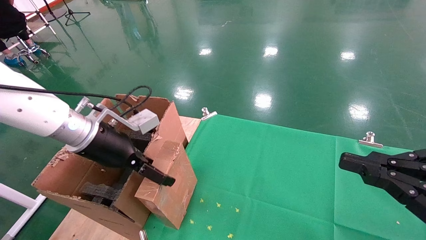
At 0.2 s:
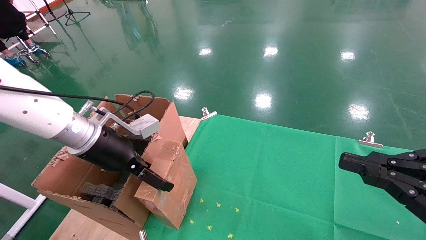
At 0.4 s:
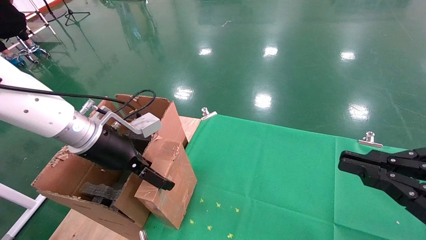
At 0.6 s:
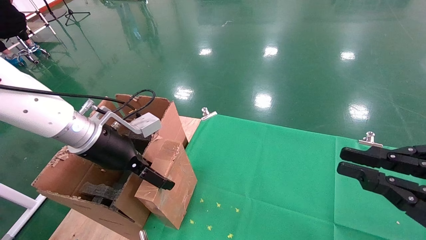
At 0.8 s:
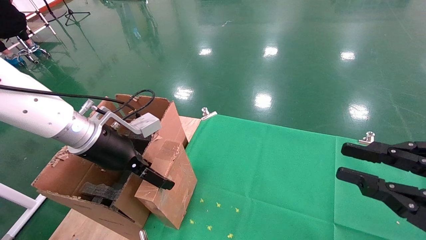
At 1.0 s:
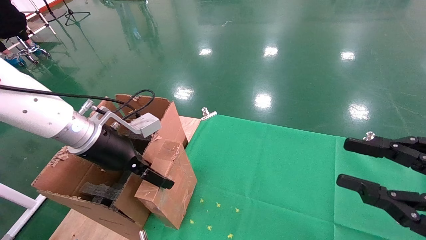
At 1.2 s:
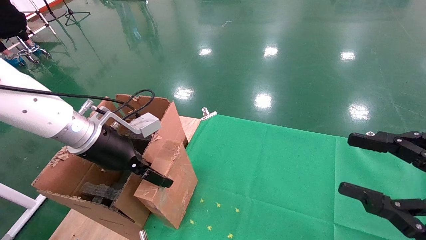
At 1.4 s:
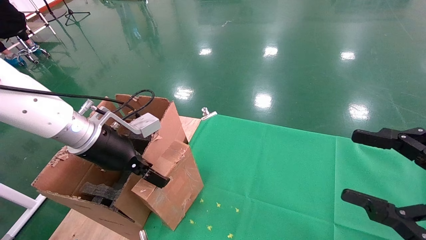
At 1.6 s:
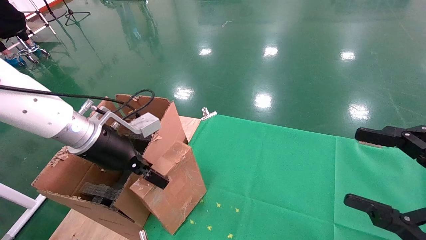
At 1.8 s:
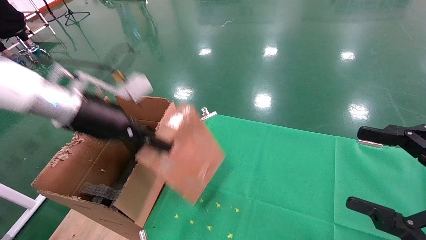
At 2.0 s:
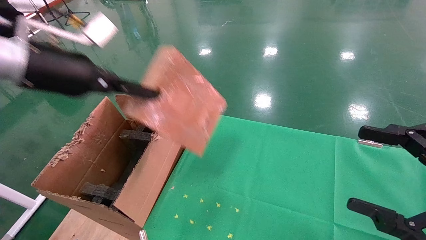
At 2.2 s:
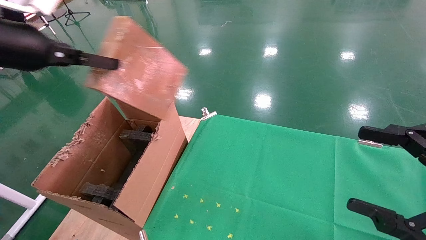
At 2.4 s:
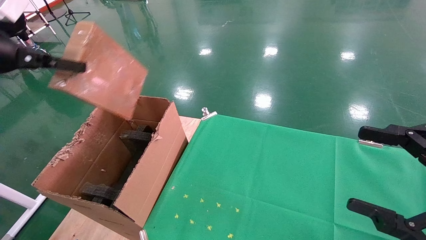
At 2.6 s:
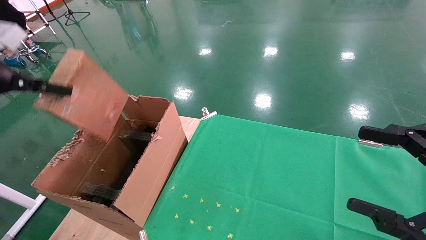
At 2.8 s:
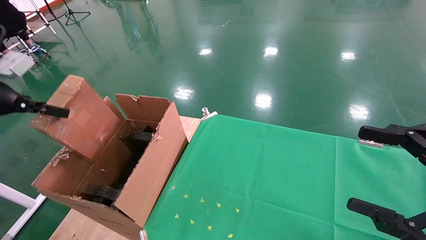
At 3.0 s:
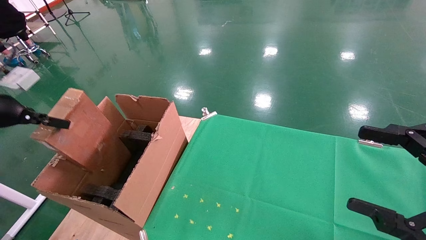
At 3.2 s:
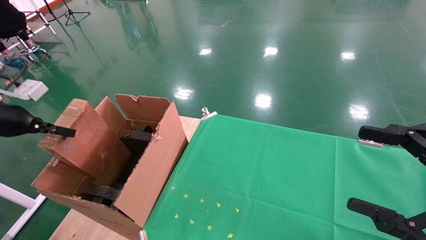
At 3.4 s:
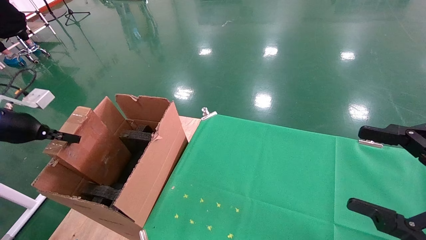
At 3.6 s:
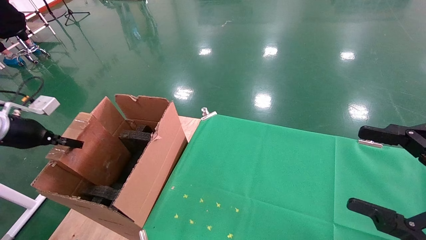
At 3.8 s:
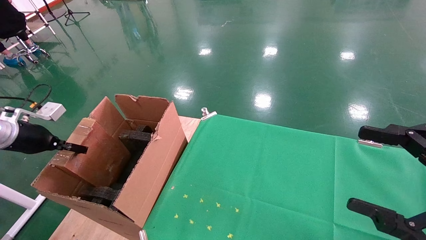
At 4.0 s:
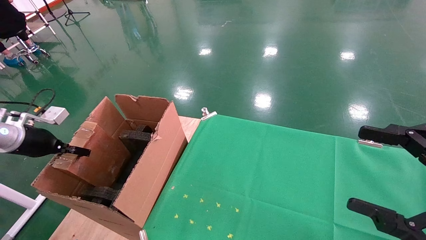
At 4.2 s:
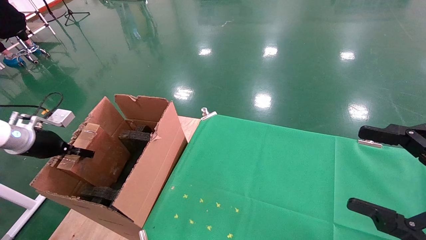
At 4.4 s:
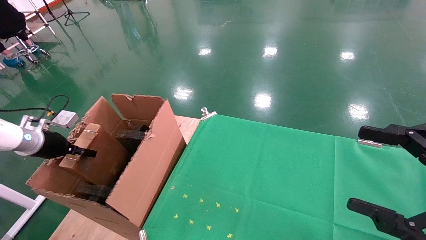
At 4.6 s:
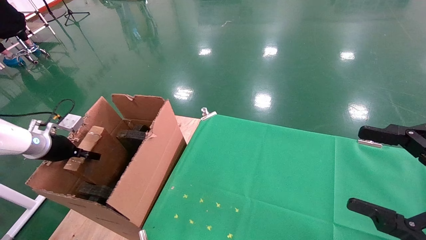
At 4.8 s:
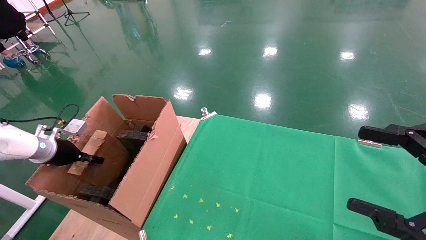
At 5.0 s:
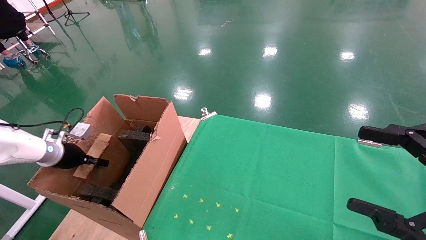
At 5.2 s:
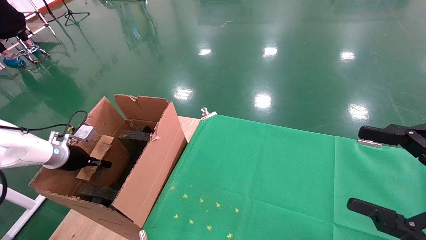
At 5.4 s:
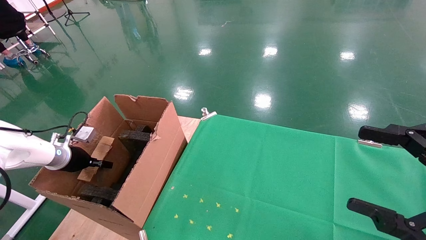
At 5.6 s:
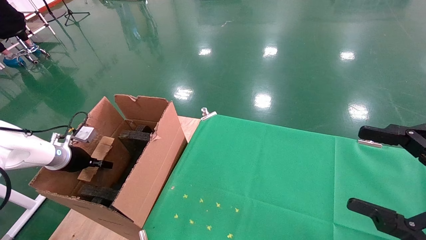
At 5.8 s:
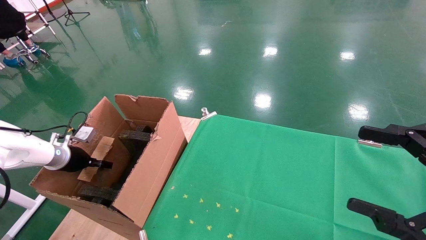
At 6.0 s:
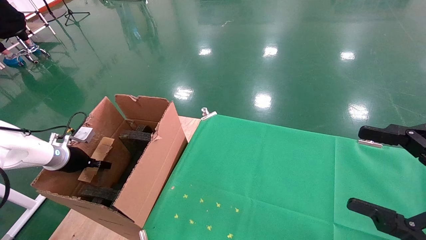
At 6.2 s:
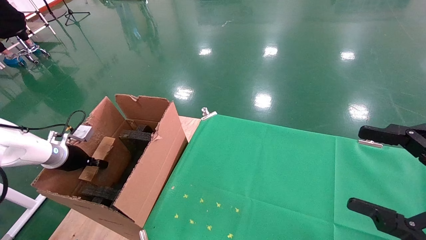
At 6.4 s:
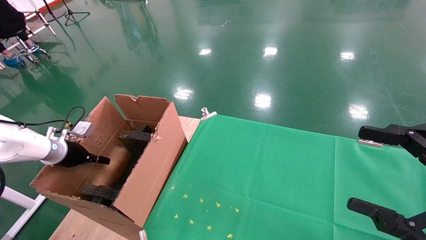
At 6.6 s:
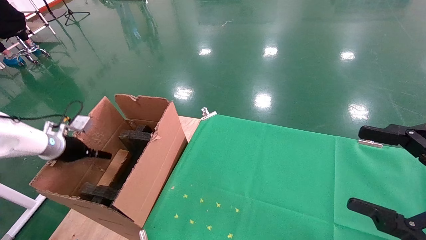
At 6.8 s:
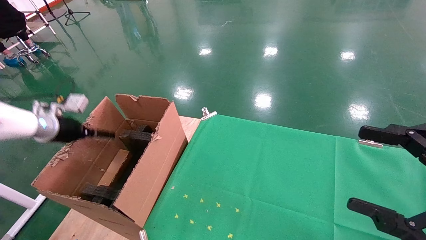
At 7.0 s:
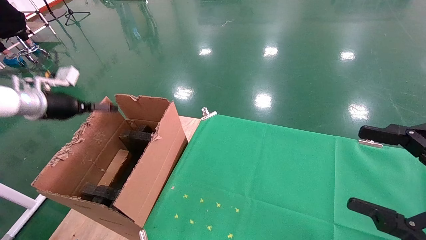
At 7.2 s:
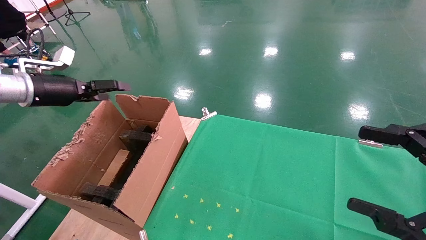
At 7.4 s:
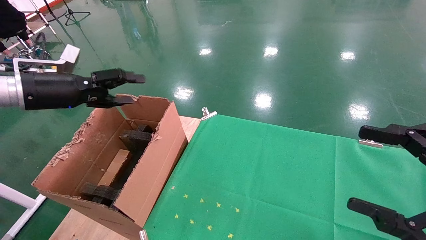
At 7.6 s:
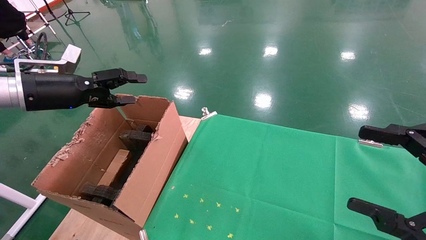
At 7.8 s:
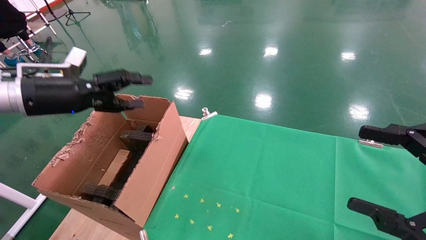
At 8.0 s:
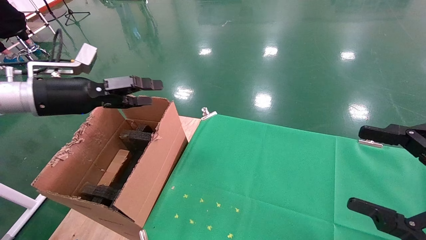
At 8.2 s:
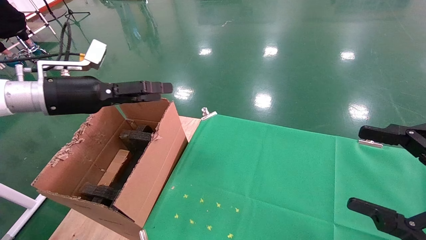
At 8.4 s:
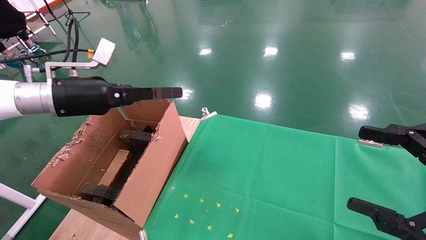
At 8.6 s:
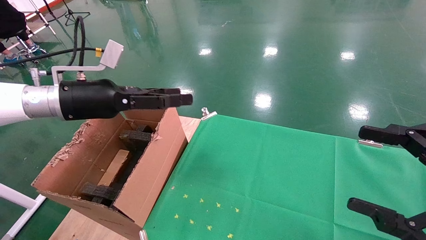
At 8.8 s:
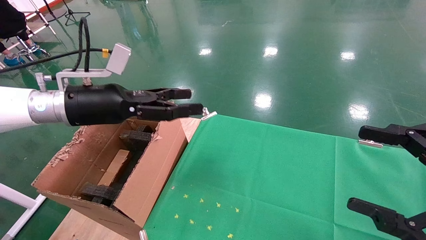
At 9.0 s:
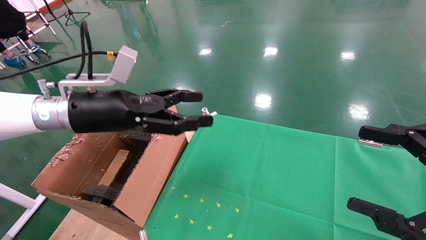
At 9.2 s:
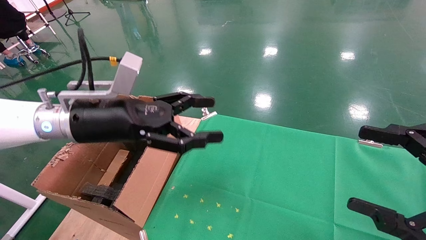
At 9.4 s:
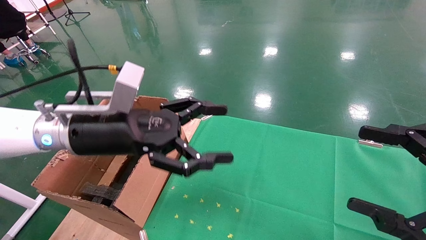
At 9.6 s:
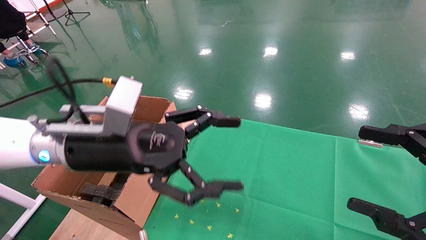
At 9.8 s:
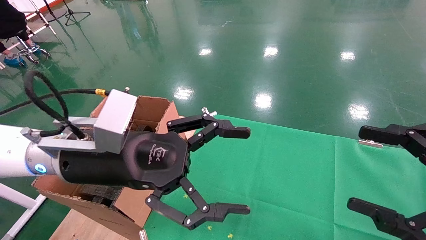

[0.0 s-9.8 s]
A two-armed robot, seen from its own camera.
Task of the whole recording: using a robotic arm to pick up a cardboard box and palace it the carton.
Step, 1.6 to 7.0 s: Place the mouse and the power cord paper box into the container.
0.0 to 1.4 s: The right gripper opens, while the left gripper closes.
1.4 to 2.8 s: The right gripper opens its fingers. The left gripper shifts some 25 cm to the left, and closes.
2.8 to 4.2 s: The left gripper shifts roughly 15 cm downward and forward.
4.2 to 5.6 s: The left gripper travels downward by about 10 cm.
5.6 to 7.0 s: The left gripper goes about 15 cm upward, and opens up.
7.0 to 8.4 s: The left gripper heads to the right, covering about 15 cm.
8.4 to 9.8 s: The left gripper shifts some 15 cm to the right and backward.

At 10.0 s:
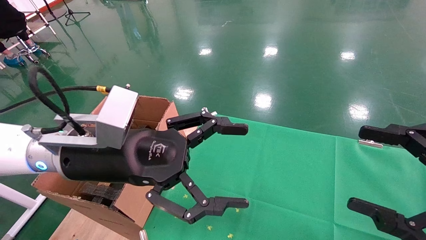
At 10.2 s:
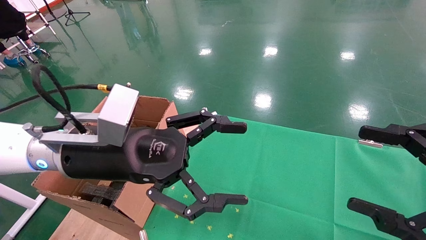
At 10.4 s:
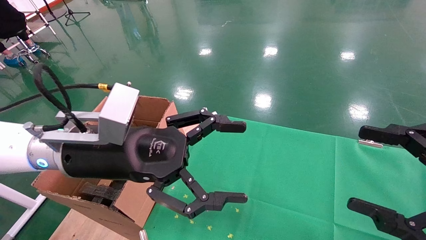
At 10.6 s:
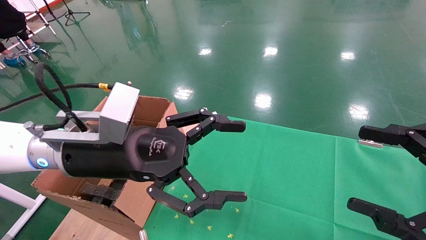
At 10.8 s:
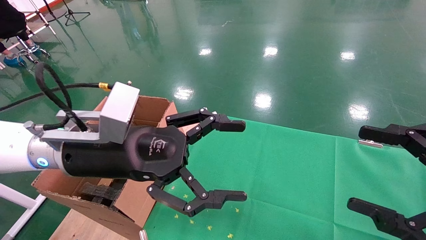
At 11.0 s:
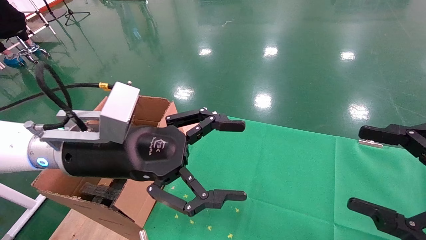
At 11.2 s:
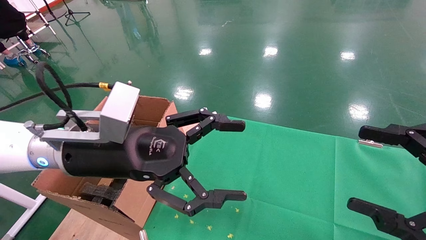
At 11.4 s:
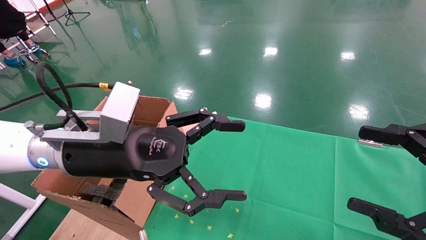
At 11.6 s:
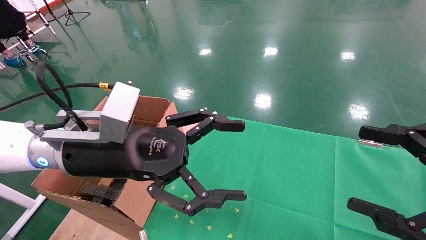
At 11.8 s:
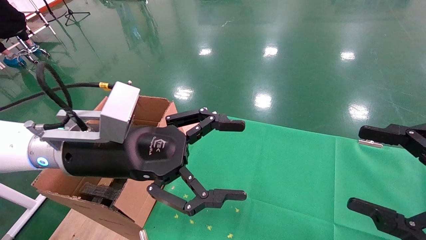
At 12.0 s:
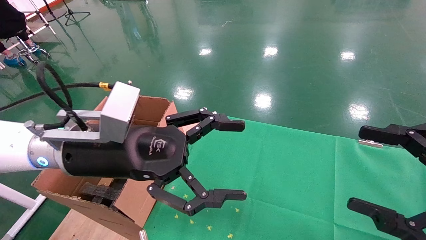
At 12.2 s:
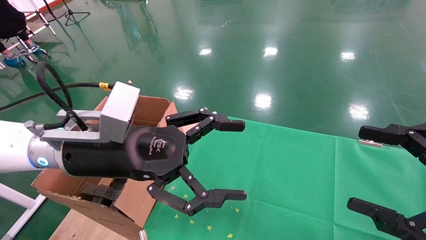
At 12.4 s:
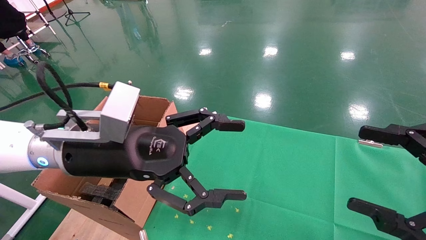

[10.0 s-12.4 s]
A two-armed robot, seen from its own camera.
Task of the whole recording: using a robotic arm to pick up a cardboard box and palace it the carton.
10.0 to 12.4 s: The two grippers keep their place.
